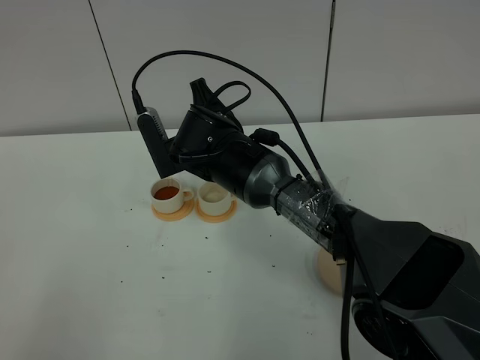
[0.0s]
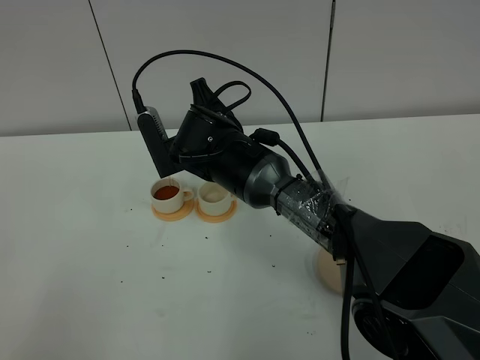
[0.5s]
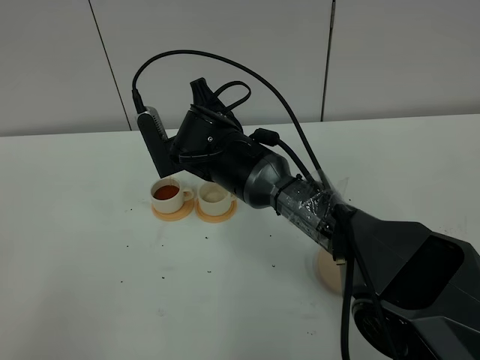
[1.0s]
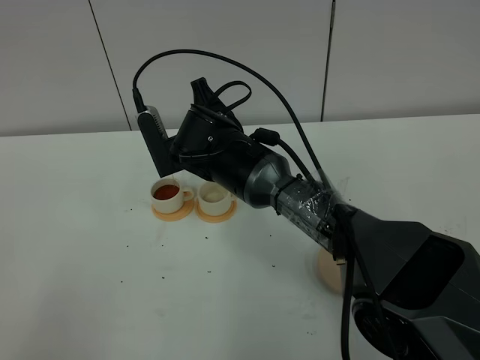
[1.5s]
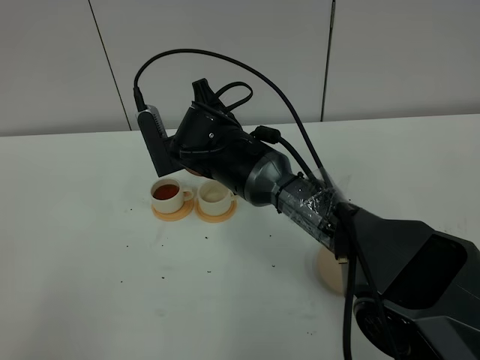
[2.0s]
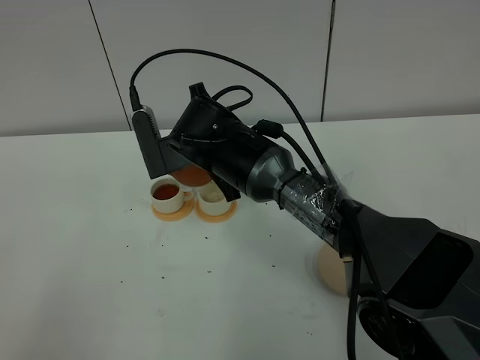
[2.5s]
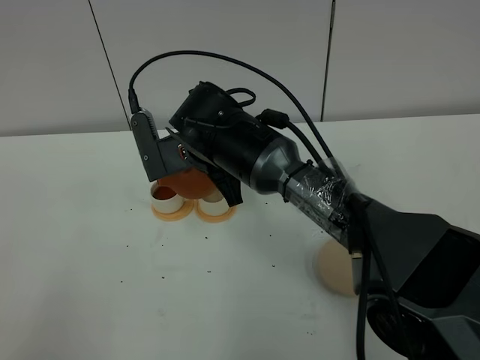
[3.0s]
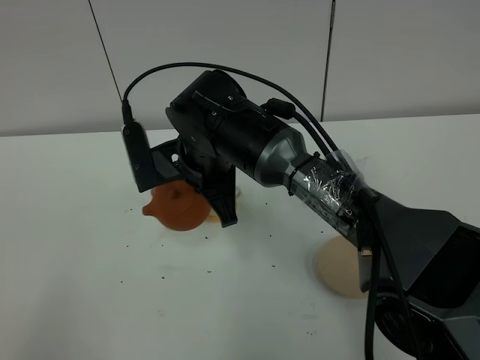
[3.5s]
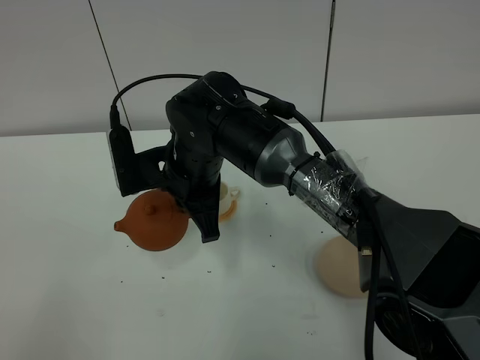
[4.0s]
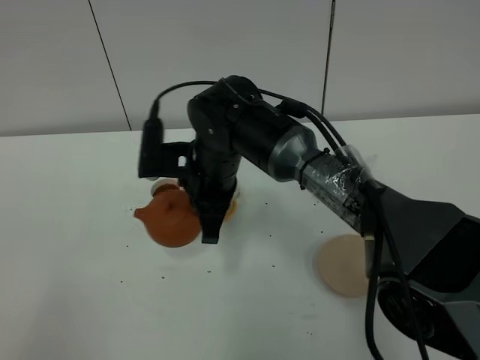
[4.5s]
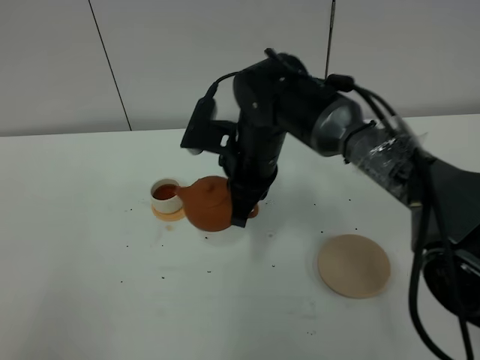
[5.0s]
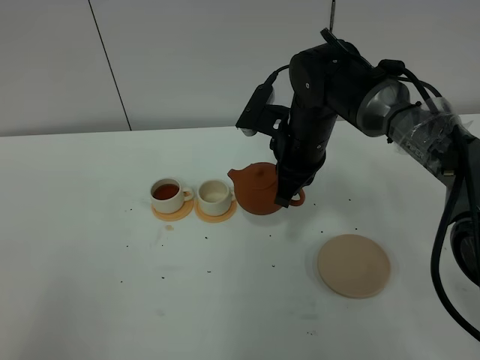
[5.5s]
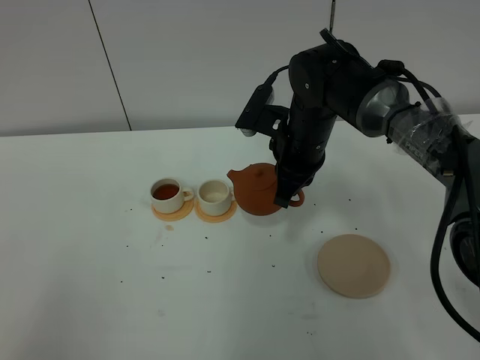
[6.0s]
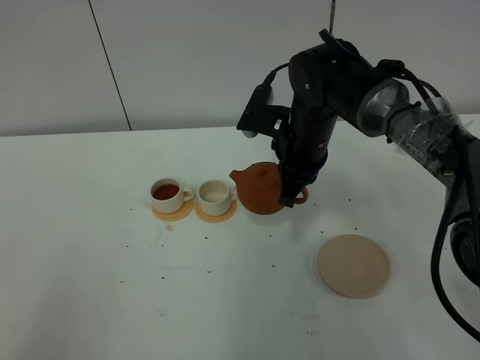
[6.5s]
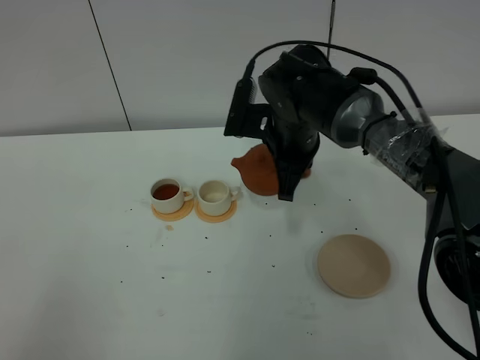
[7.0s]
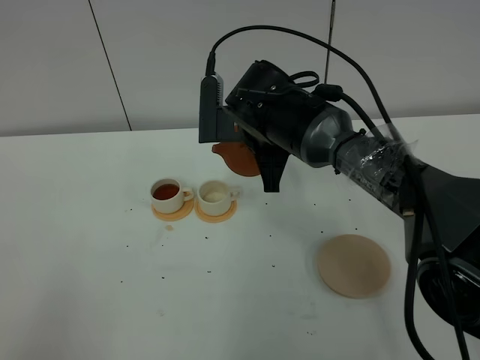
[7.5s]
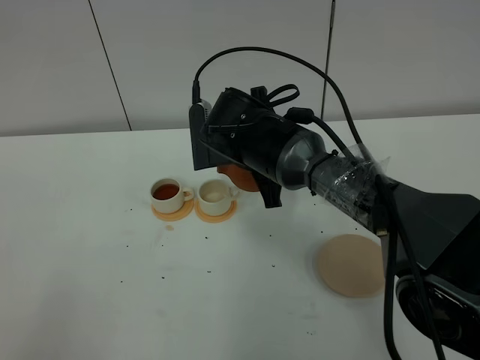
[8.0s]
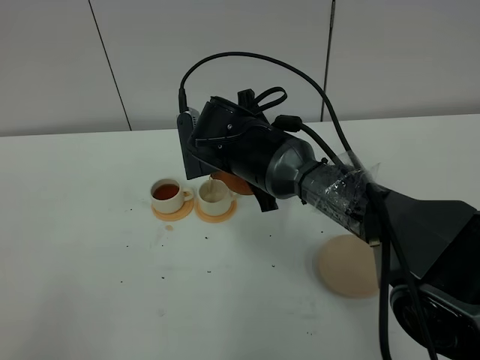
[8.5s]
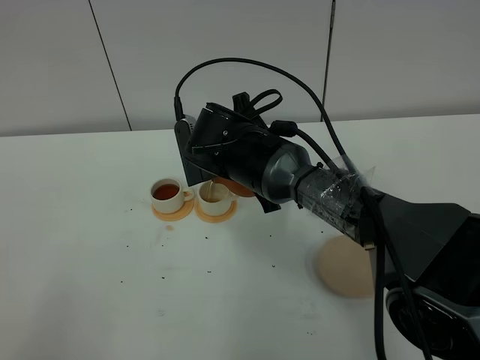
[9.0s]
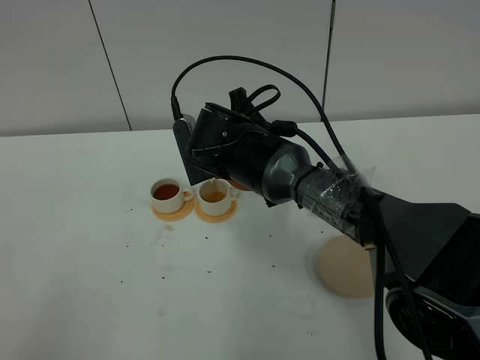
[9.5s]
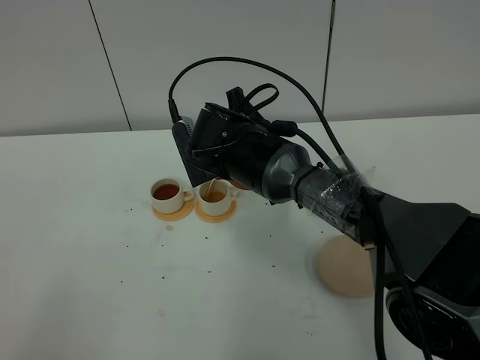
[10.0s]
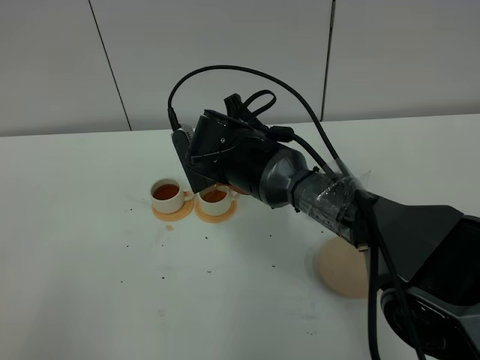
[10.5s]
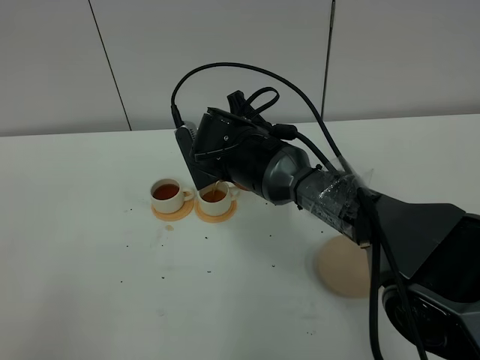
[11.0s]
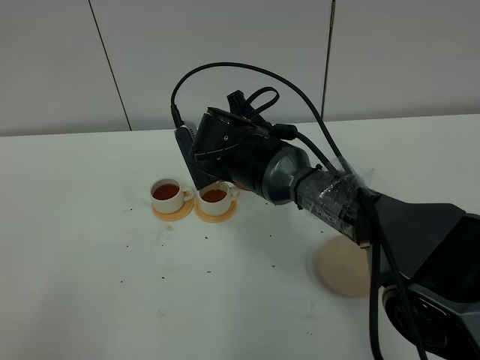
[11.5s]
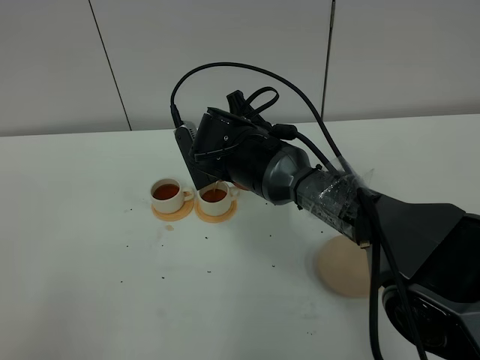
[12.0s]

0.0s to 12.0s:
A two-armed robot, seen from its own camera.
Task of the whole recording: grasp the brown teapot and pour the tea into the two white teacups one by one, put the brown teapot back in its original place.
Step, 0.0s to 3.5s: Pour tea into the teacup with the right gripper.
0.0s to 2.0s: Both grippers stay about where they are.
2.0s to 4.0s: The right gripper heads backward, covering about 5 cm.
4.0s to 6.0s: The right gripper moves to the right and forward, roughly 15 cm.
6.0s to 8.0s: The right gripper travels to the left by about 5 cm.
8.0s to 10.0s: The grippers make only small movements.
10.0s to 12.0s: Both grippers stay about where they are.

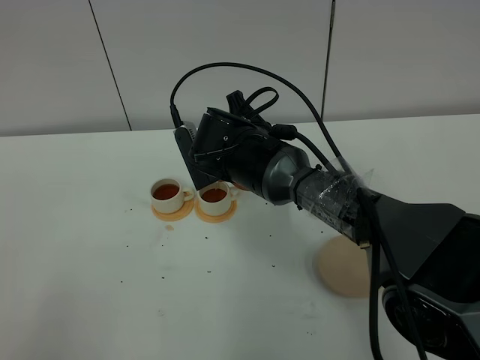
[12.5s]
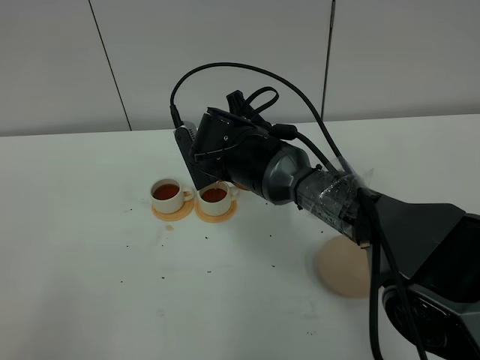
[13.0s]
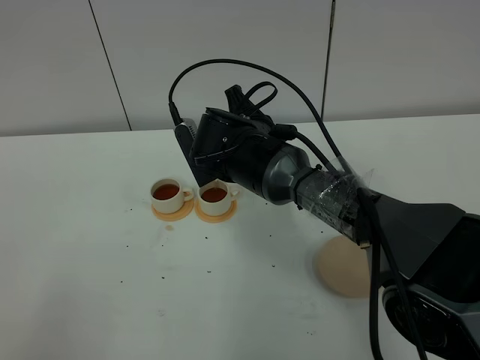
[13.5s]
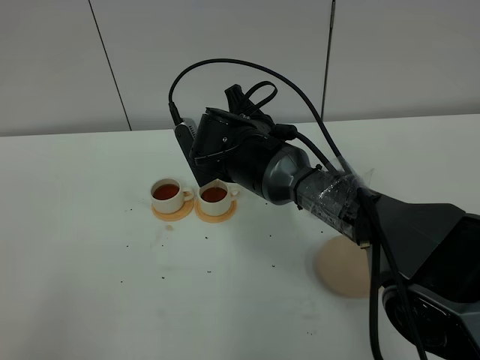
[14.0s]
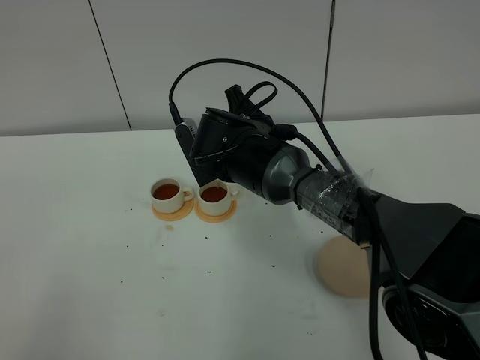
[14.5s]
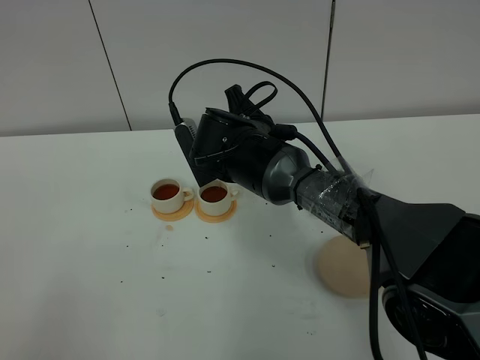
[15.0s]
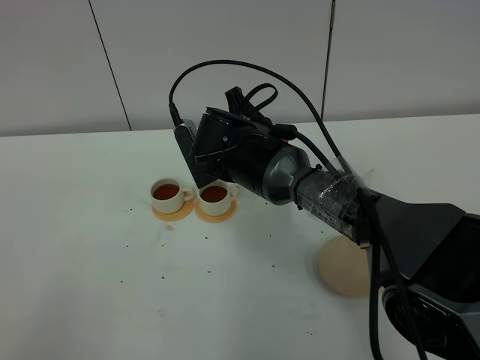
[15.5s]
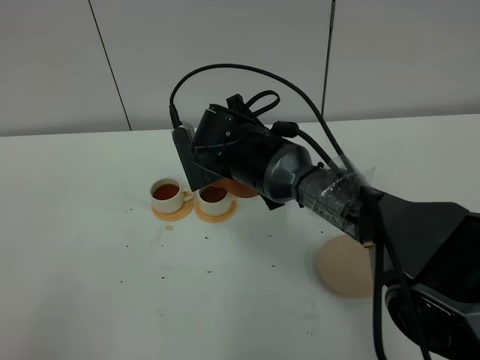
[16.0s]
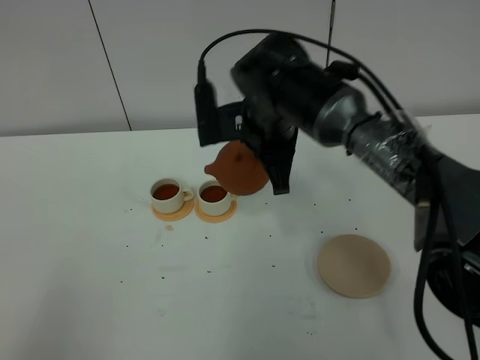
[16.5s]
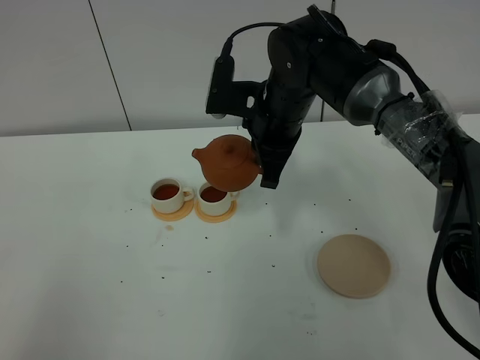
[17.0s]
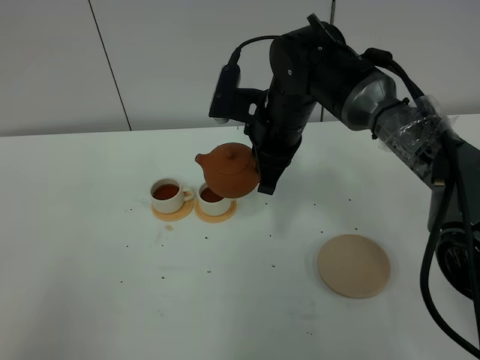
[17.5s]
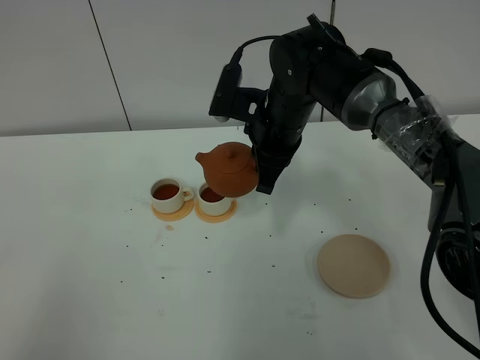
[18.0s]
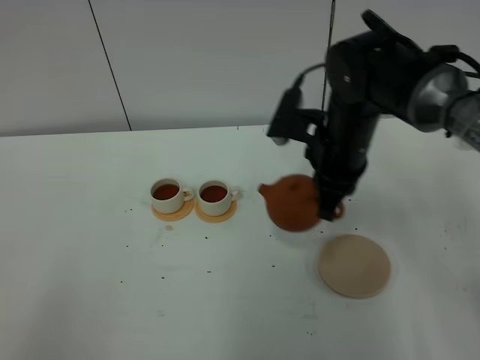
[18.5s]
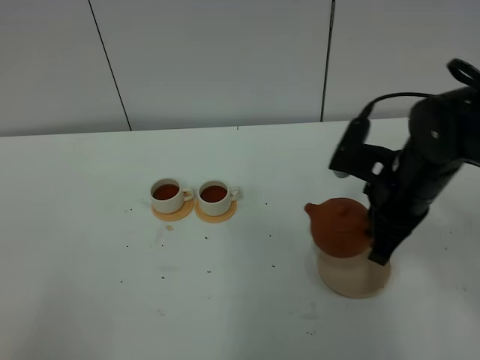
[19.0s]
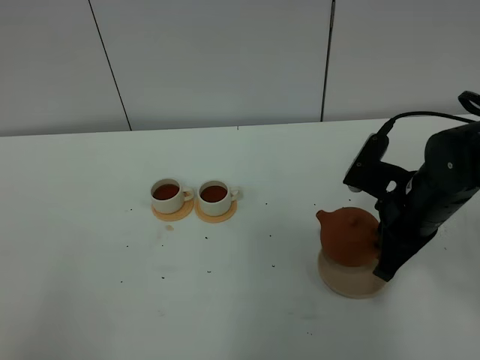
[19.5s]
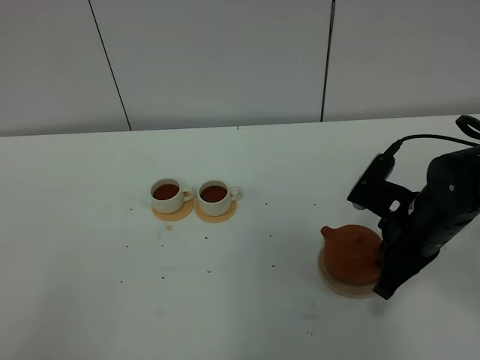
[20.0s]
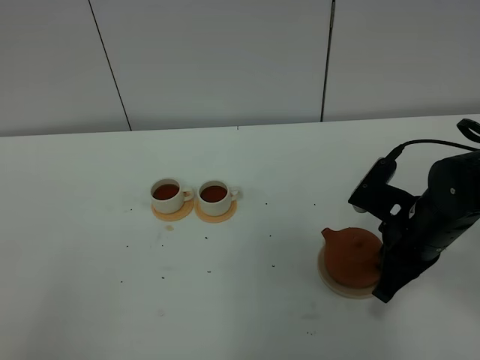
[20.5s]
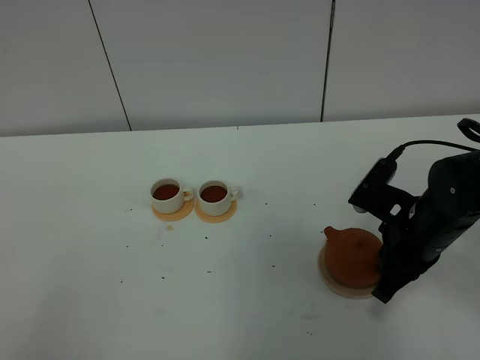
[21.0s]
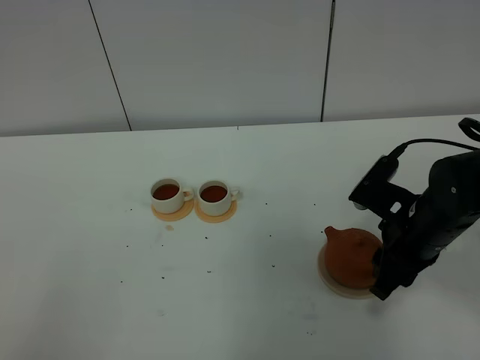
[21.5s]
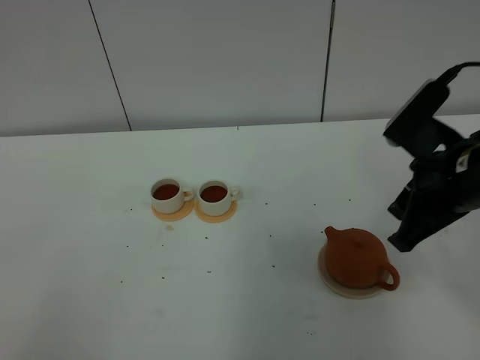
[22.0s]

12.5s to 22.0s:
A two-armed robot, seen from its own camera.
Task of the whole recording: grasp the brown teapot and pour the tea into the two white teacups one by one, put the brown teapot back in its original place.
Step, 12.5s to 16.5s: Pour tea into the teacup with the right gripper.
12.5s to 14.5s: Neither gripper changes place.
14.5s to 16.5s: The right gripper shifts by roughly 5 cm.
18.0s to 20.0s: The right gripper is displaced to the right, backward and downward by about 20 cm.
20.0s to 22.0s: The right gripper heads upward, covering about 10 cm, and opens its fingers.

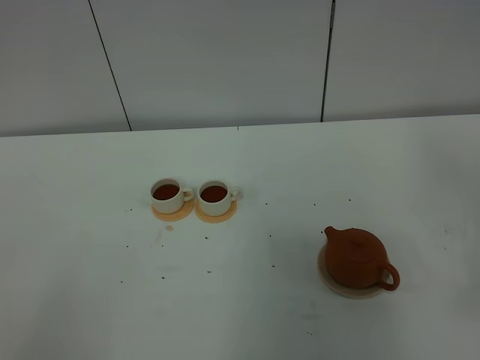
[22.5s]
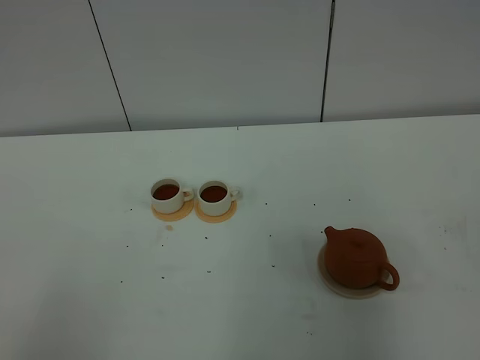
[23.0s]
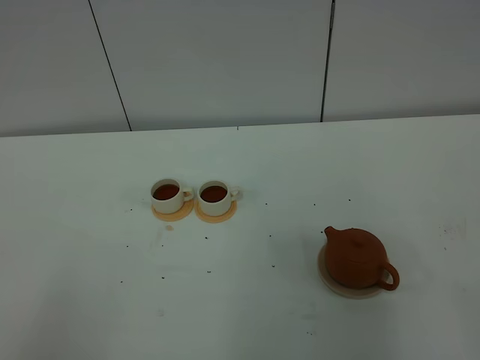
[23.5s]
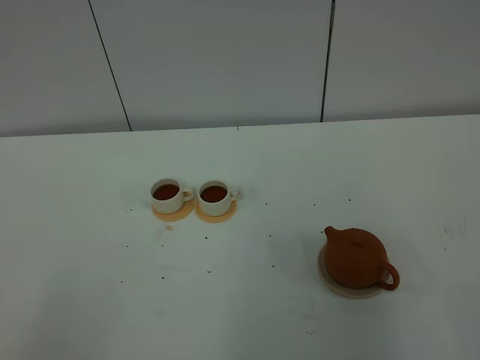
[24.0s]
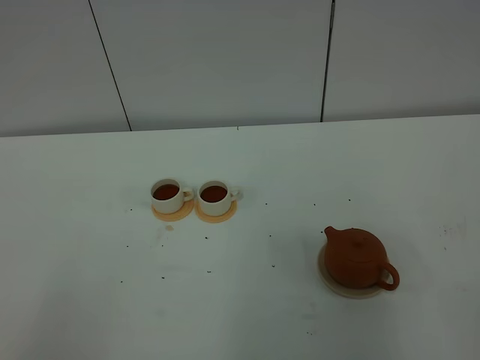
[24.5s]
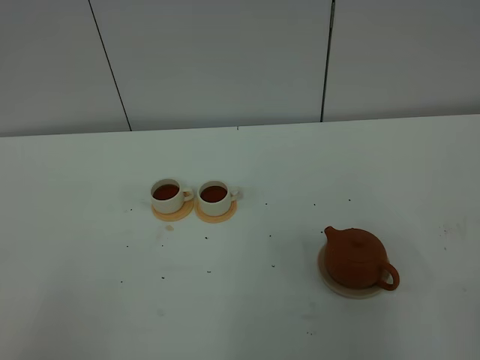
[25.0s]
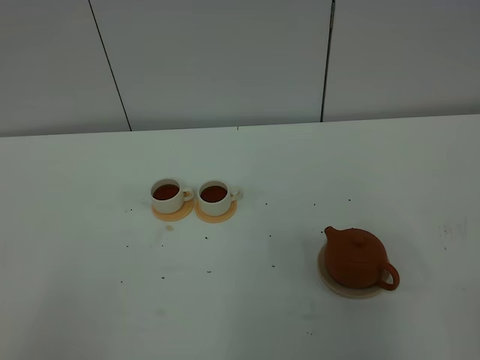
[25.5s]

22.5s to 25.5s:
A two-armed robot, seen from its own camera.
Task of the whole recording: grasp the brown teapot and pour the tea into the two white teacups one by one, put the brown teapot back in its original place.
24.0s to 25.5s: The two grippers keep their place.

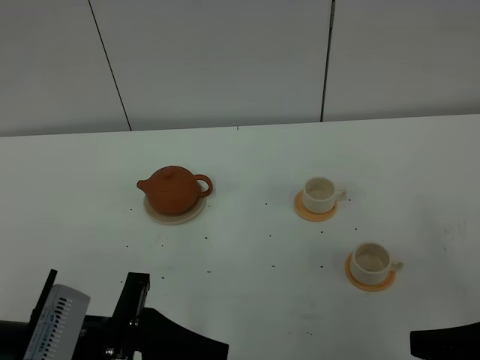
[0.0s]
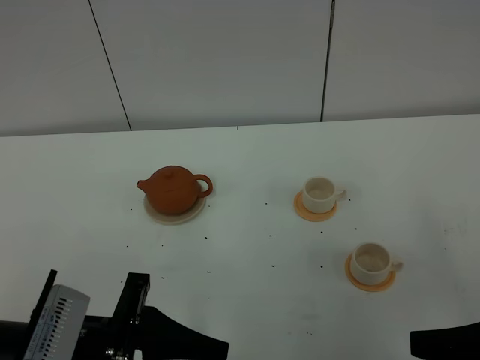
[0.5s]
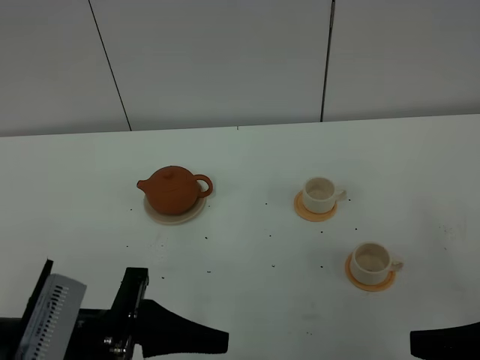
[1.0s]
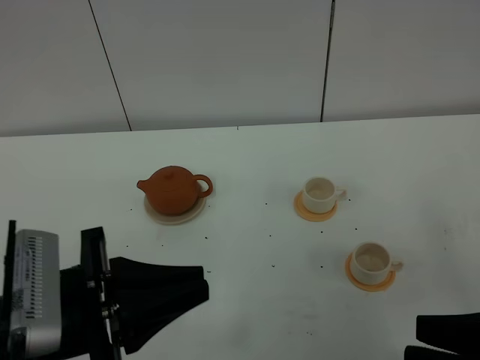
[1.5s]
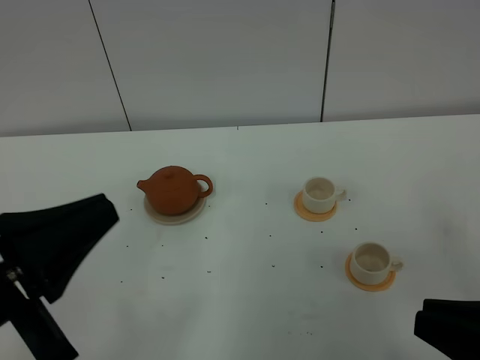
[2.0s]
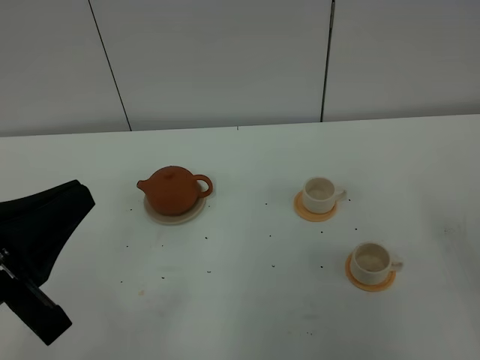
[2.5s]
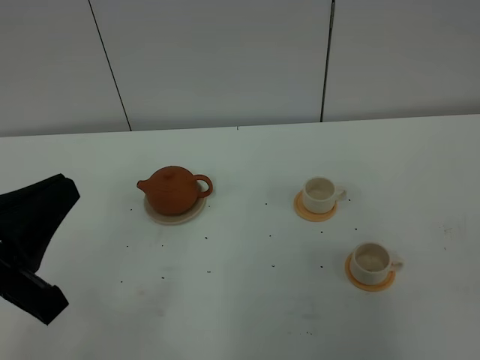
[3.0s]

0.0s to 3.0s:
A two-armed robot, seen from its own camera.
Task of the whole recording: grasp the brown teapot and pour the tea into the two white teacups one by one, put the brown teapot back in its original place.
0.0s to 1.5s: The left gripper closes its fingers.
1.5s to 3.0s: The left gripper shifts roughly 10 cm to the left and upward. Meanwhile the right gripper moves backward and to the right, approximately 10 cm, and closes up.
